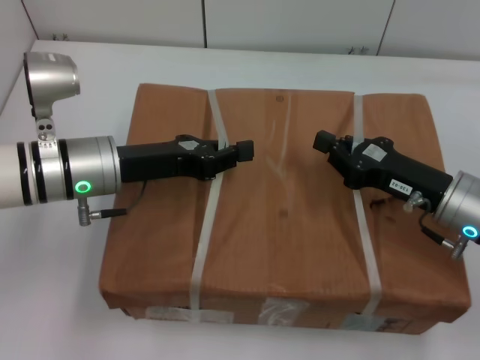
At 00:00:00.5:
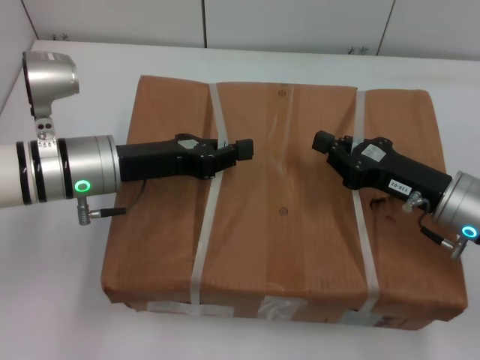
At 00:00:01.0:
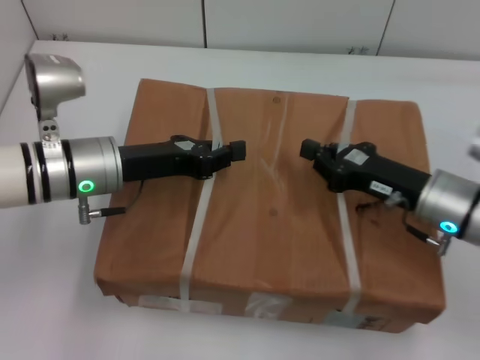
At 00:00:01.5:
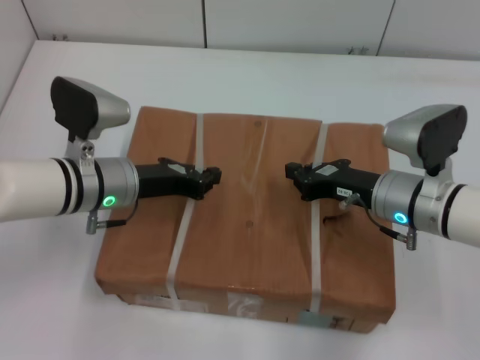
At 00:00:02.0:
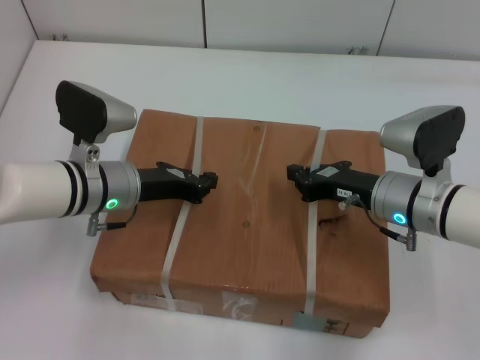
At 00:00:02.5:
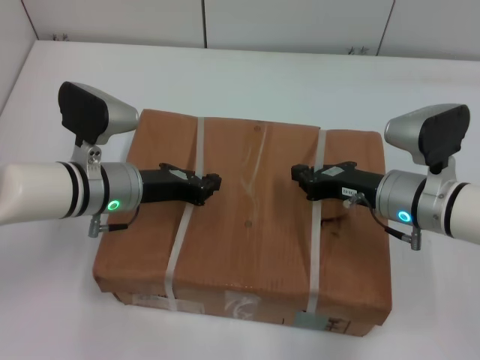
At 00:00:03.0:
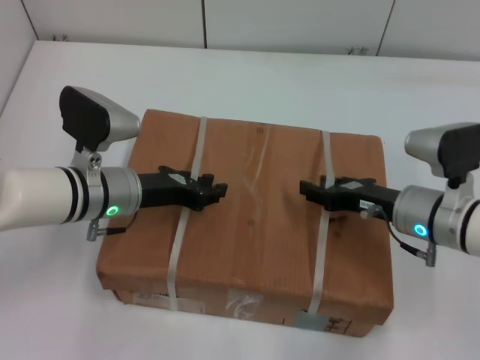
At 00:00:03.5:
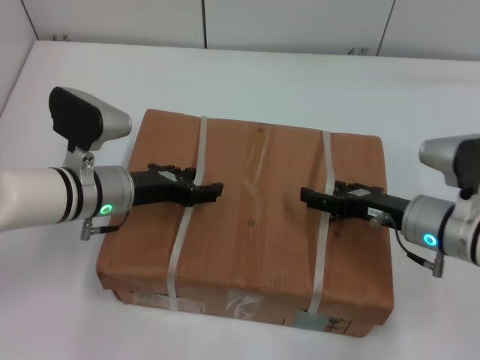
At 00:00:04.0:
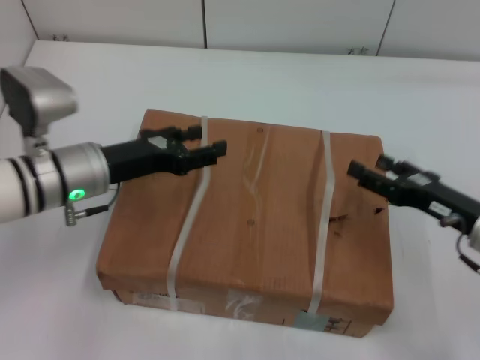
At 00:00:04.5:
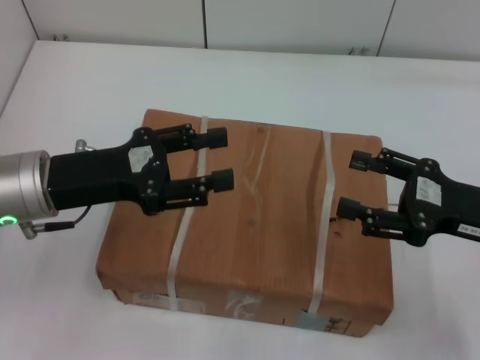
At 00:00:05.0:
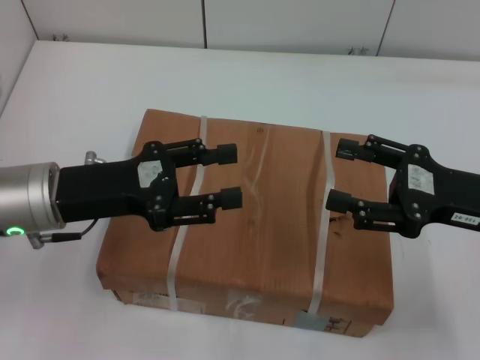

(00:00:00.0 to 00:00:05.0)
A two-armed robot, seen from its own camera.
Task of the whole recording: place the box on the table with both arms.
Step, 00:00:00.0 - 00:00:01.5: Place the box on the table with left gripper.
Step, 00:00:00.0 - 00:00:01.5: Place the box on the table with right gripper.
Step, 00:00:02.0 - 00:00:03.0: Loosen the box on the table with left gripper.
Step, 00:00:02.0 - 00:00:03.0: Loosen the box on the table with right gripper.
00:00:00.0 - 00:00:02.5: The right gripper moves approximately 5 cm, while the left gripper moves downward, about 5 cm.
00:00:02.5 - 00:00:05.0: The left gripper travels backward and upward by some 10 cm, and opens its fingers; the right gripper is displaced to the right, upward and backward by roughly 15 cm, and opens.
